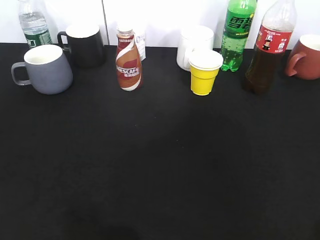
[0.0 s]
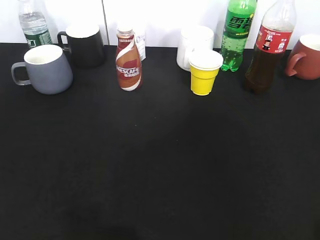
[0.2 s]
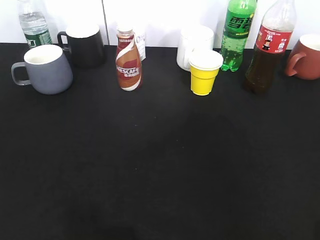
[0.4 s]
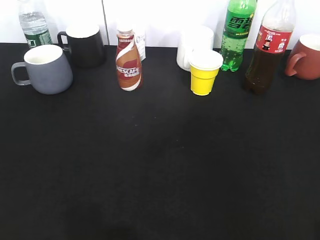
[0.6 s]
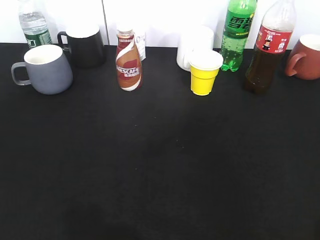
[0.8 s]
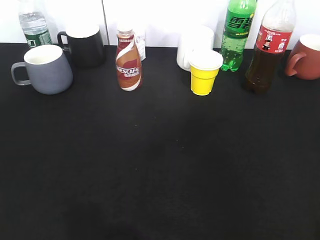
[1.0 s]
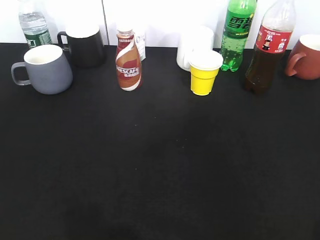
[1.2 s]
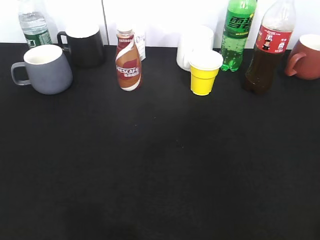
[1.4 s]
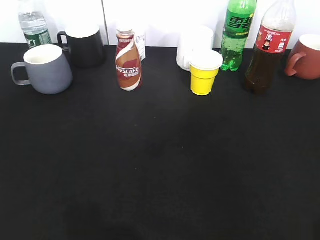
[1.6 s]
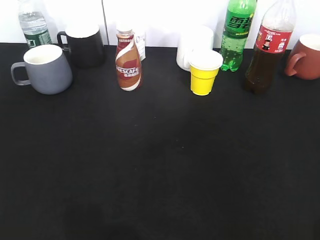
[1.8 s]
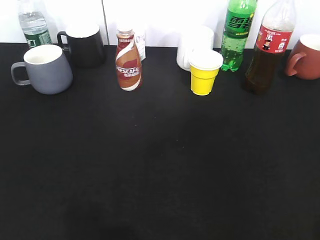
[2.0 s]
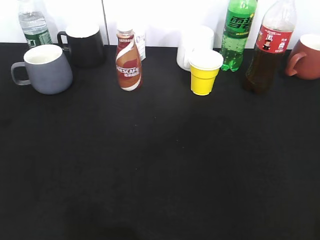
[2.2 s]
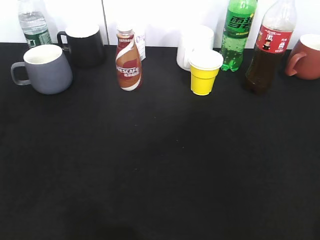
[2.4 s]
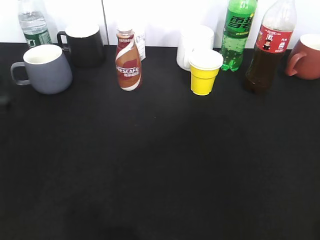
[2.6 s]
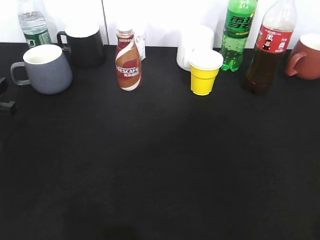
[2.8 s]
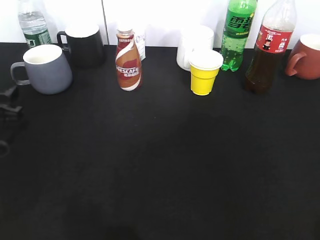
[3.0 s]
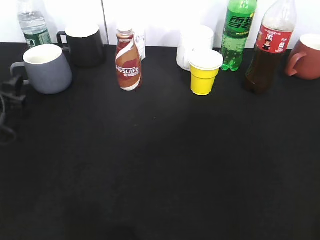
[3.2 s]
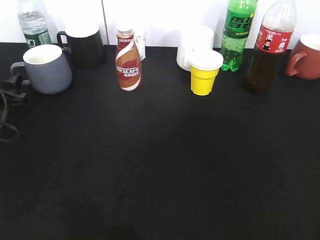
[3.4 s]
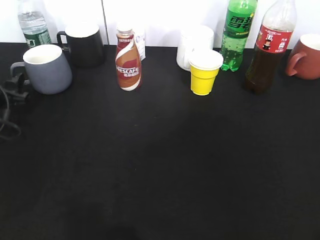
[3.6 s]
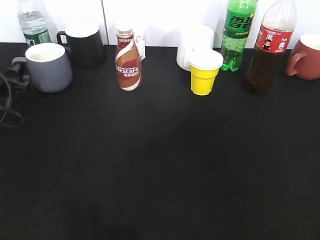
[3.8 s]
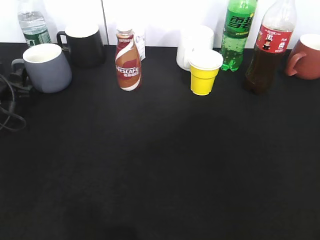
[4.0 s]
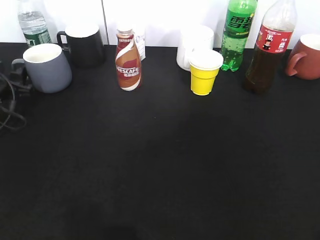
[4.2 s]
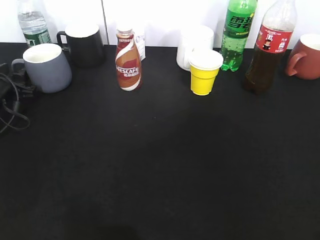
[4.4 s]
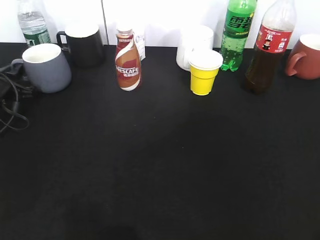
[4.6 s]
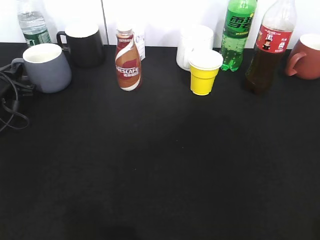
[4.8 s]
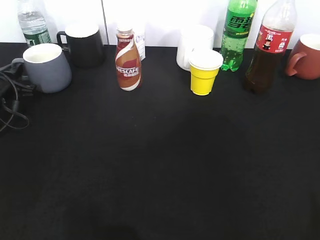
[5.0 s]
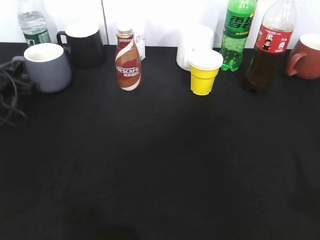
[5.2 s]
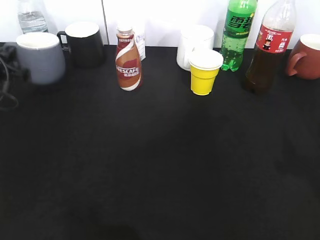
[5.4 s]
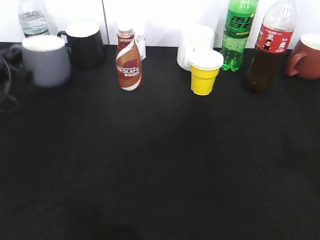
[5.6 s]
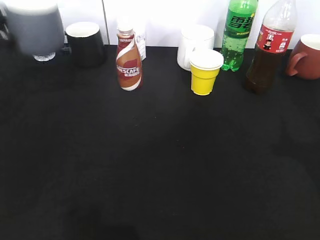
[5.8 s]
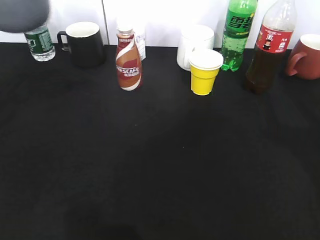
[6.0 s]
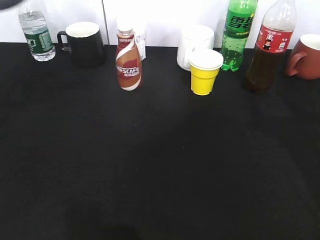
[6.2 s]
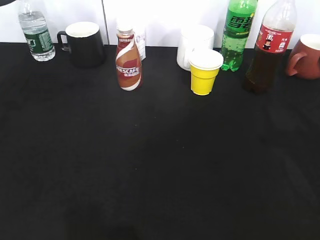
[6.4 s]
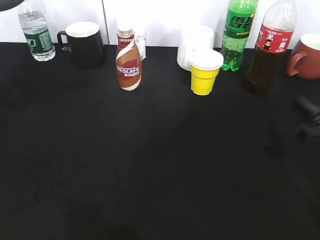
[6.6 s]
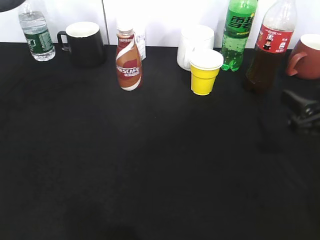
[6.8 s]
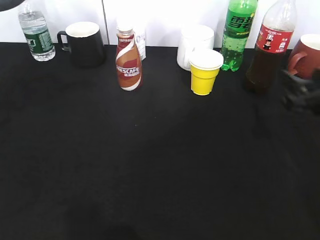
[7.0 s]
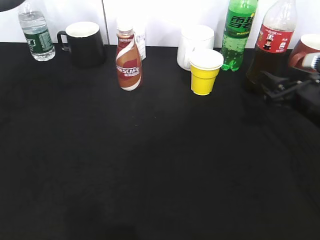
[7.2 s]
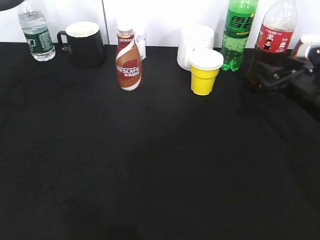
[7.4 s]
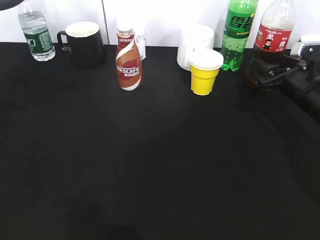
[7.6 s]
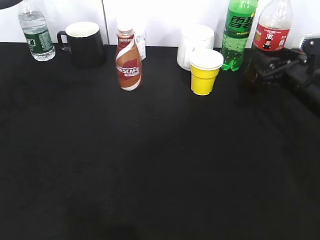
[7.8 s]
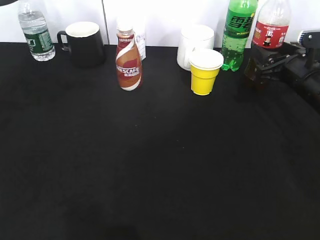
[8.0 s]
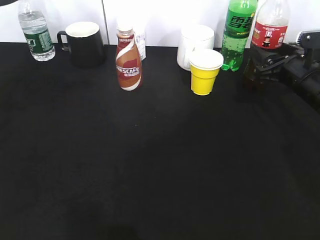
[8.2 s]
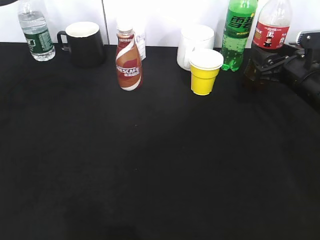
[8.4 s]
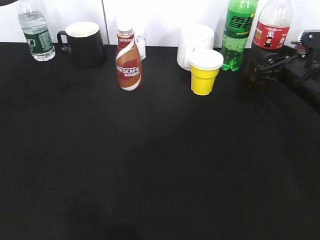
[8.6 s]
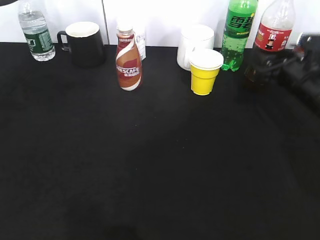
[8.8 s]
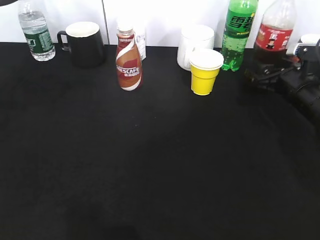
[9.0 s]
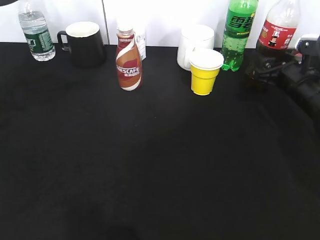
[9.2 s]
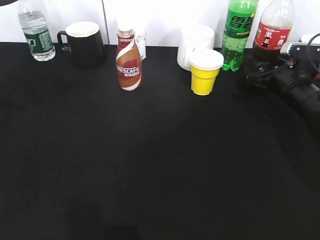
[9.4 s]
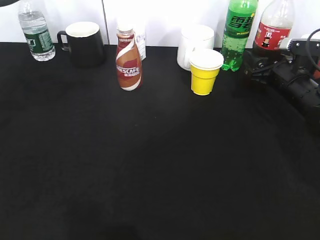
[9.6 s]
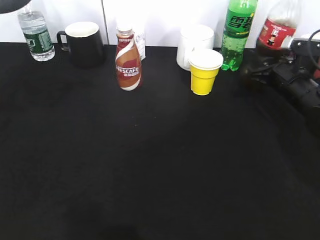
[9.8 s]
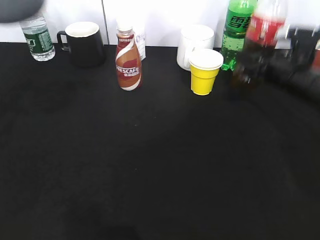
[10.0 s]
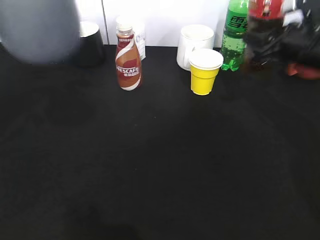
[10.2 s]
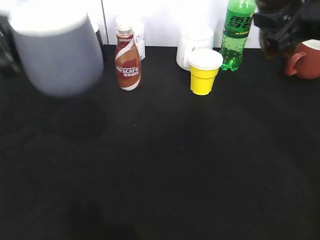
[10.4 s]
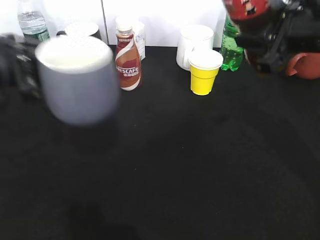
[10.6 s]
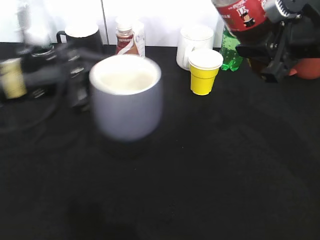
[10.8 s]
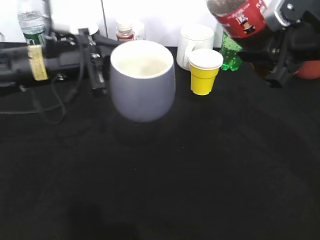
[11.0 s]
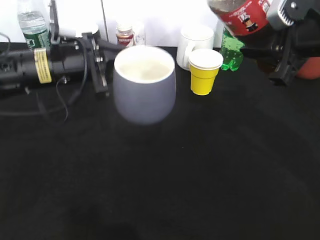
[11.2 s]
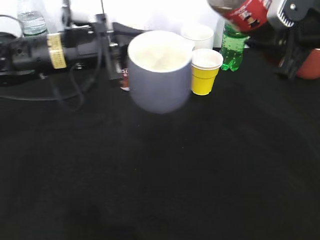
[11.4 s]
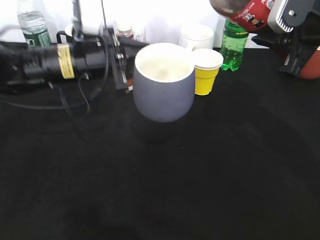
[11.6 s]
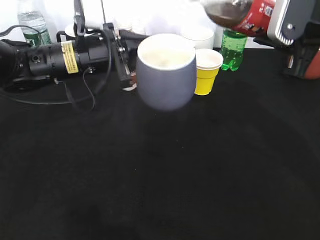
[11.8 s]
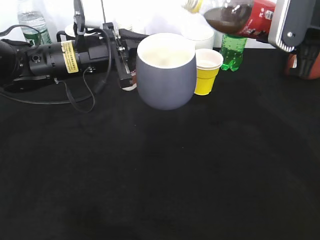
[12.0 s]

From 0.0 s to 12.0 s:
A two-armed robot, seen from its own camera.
Step, from 1.6 s to 4.6 s: Grasp the grey cup with left gripper.
Step, from 5.0 s to 5.8 s: Lift the grey cup with left gripper.
Step, from 6.2 s to 8.2 s: Grasp the bottle with cola with right gripper.
From 3.0 s to 4.4 s: The left gripper heads forward, covering roughly 10 cm.
From 4.4 s to 6.0 s: The left gripper is displaced upward and backward by roughly 25 cm, and closes.
From 6.0 s to 7.6 s: The right gripper shifts approximately 25 cm downward and forward, while the left gripper moves about 5 cm.
From 7.6 s to 9.0 s: The grippers make only small movements.
From 9.0 s to 10.4 s: The left gripper heads downward, covering about 10 cm; the right gripper goes some 15 cm upward, and closes.
From 10.4 s to 12.0 s: The left gripper travels to the right and forward by some 15 cm.

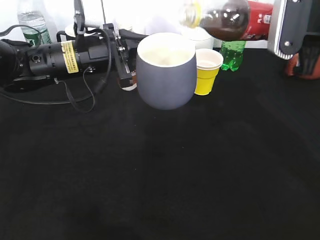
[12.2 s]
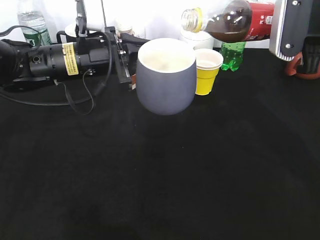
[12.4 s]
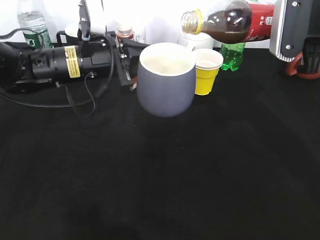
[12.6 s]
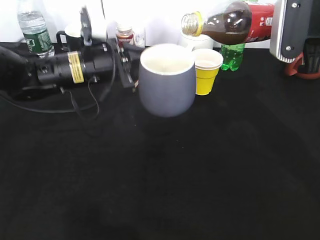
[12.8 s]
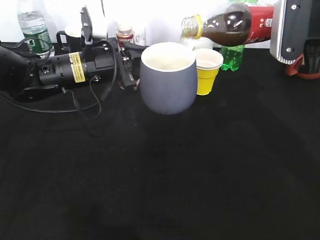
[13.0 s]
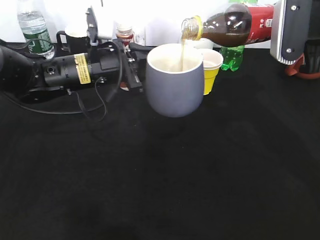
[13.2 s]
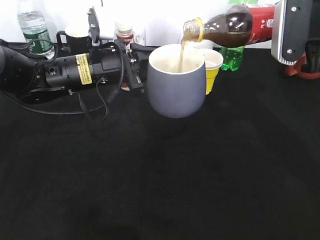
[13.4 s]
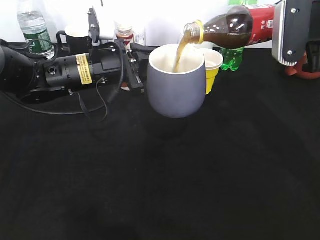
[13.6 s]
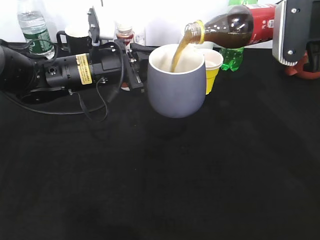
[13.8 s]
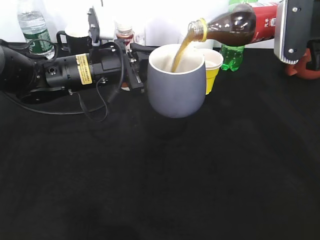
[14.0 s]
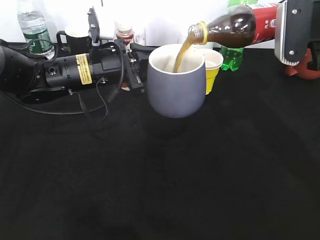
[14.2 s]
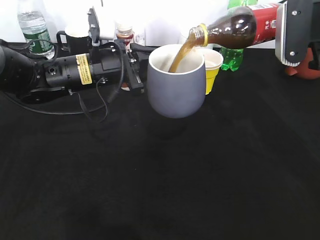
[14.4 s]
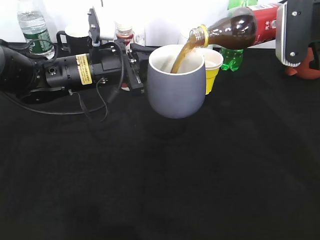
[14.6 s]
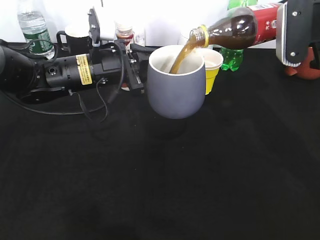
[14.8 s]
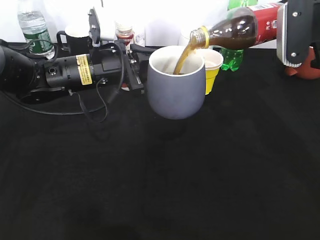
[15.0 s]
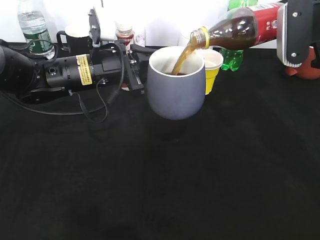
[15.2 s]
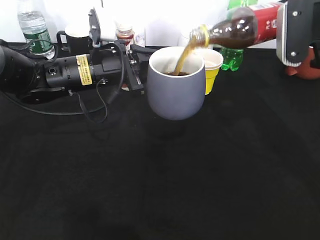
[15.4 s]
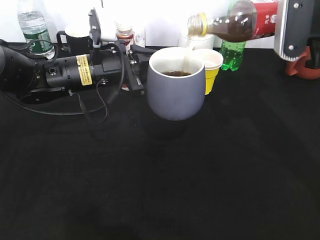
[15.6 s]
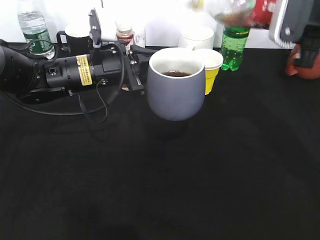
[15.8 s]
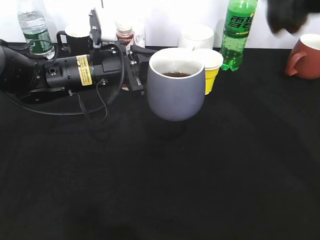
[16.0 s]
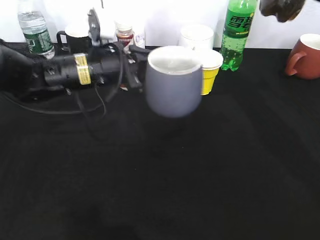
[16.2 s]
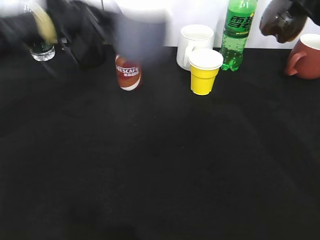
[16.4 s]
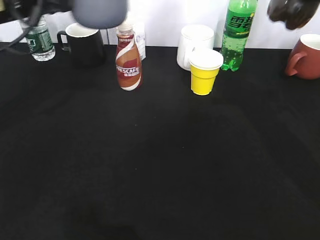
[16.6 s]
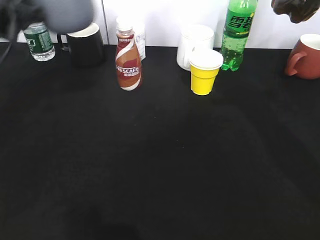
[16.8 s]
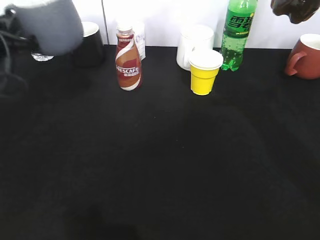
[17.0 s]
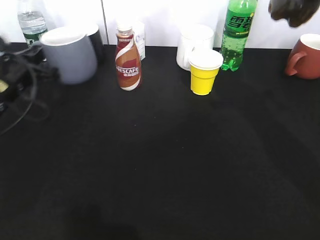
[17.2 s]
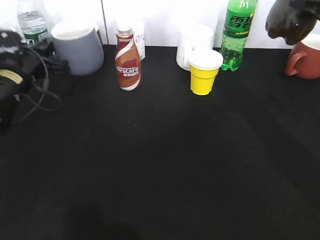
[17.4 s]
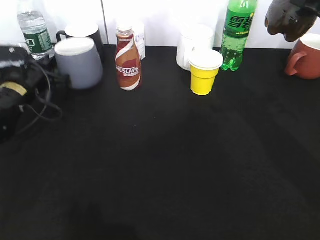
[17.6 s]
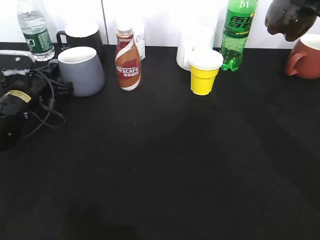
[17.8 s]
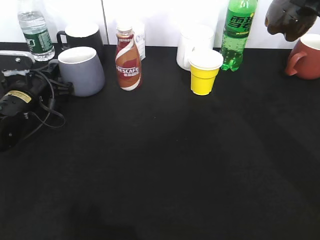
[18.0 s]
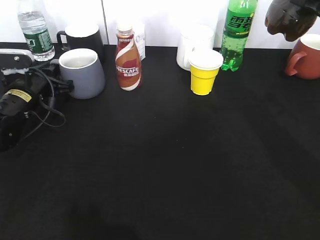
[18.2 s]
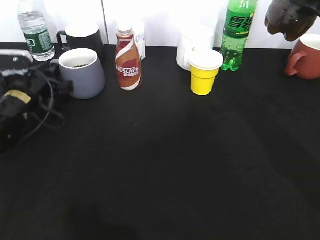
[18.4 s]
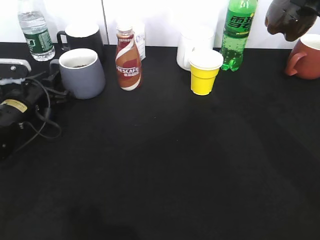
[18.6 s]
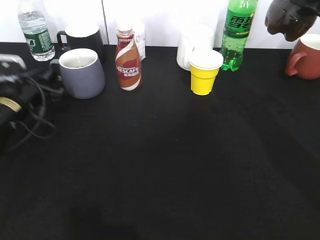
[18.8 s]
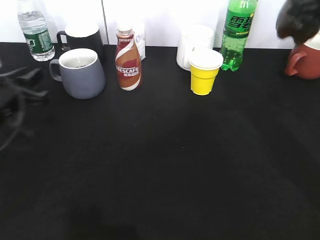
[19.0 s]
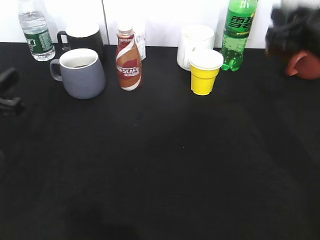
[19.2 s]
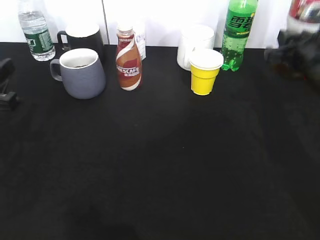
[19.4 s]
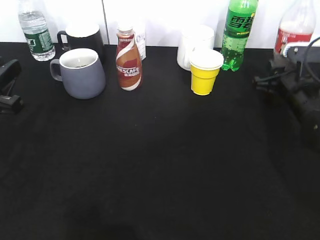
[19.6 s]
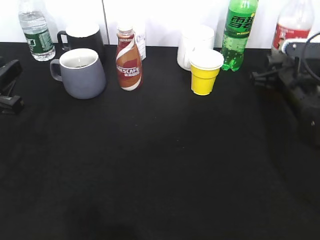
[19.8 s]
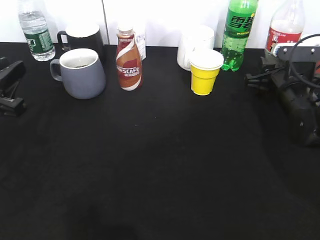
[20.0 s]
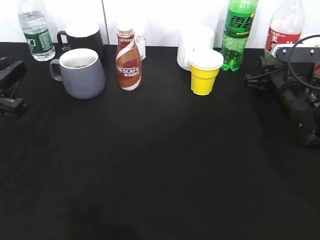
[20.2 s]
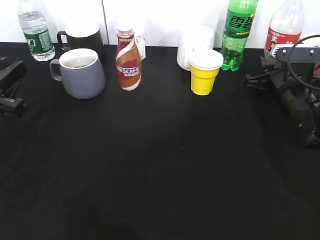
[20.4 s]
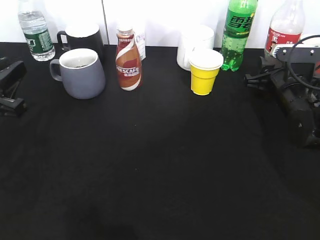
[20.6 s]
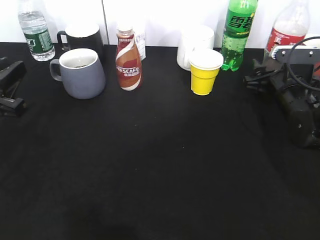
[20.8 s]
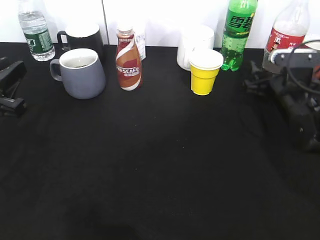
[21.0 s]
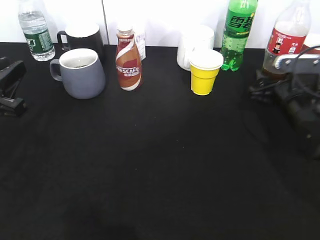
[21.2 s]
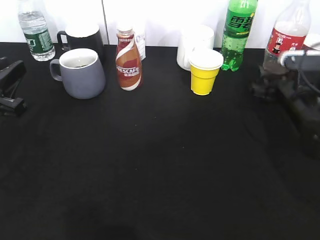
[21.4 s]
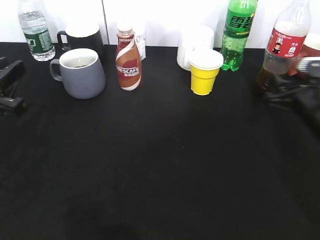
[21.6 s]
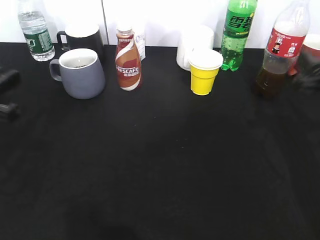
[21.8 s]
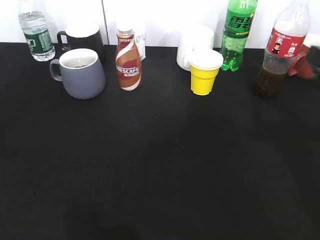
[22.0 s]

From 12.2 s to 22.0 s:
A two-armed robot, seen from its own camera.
Step, from 12.2 s to 15.2 s: Pour the cola from bottle to cup with right gripper.
Step, from 15.4 s to 19.2 s: Place the grey cup on the table with left gripper.
Step, from 19.4 s to 21.8 s: Place the cola bottle on the table with right gripper.
From 12.2 s to 15.0 s: There are only small adjustments of the grippers.
From 15.0 s to 16.4 s: The left gripper travels upward and to the left by approximately 10 cm.
From 16.4 s to 17.8 s: The left gripper goes roughly 20 cm downward and to the left.
From 17.8 s to 19.2 s: The right gripper goes roughly 5 cm downward. Meanwhile the left gripper travels backward and upward by some 15 cm, and opens up.
From 19.2 s to 20.6 s: The right gripper travels downward by roughly 15 cm.
From 20.6 s to 22.0 s: The right gripper goes approximately 20 cm backward and upward, and opens its fingers.
